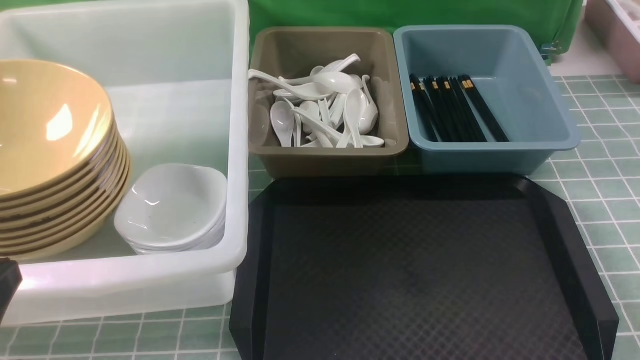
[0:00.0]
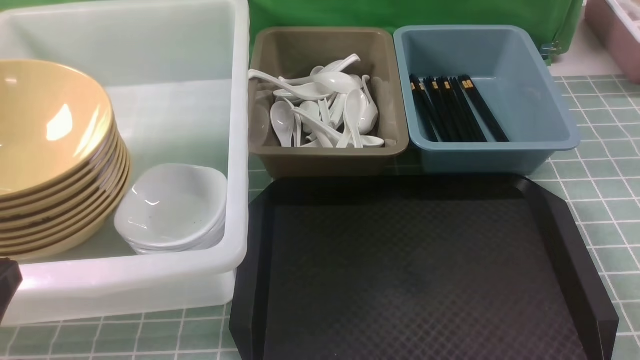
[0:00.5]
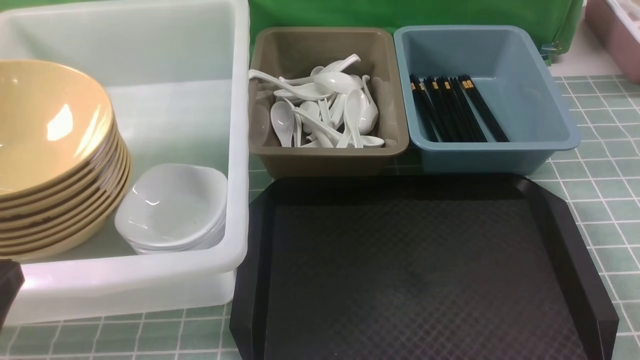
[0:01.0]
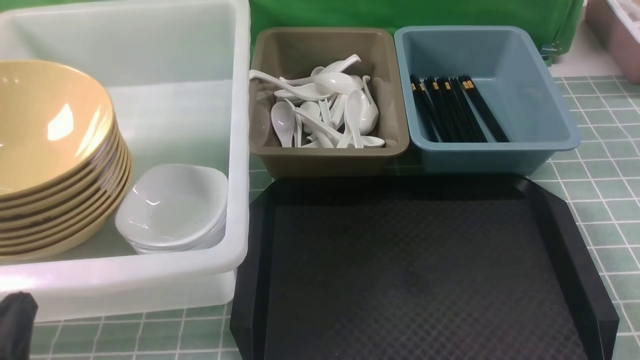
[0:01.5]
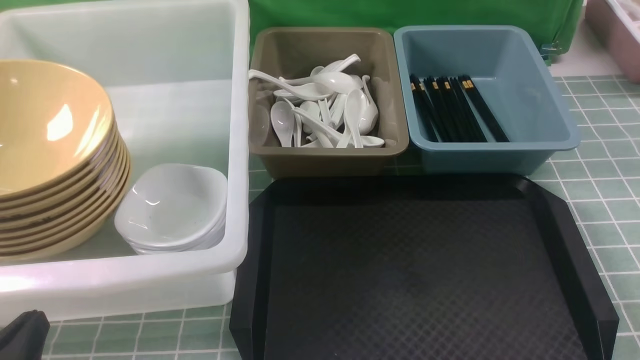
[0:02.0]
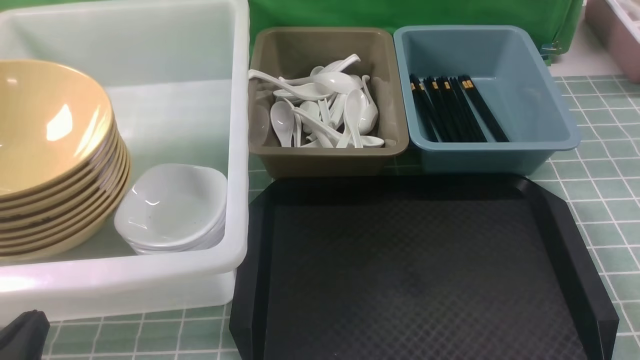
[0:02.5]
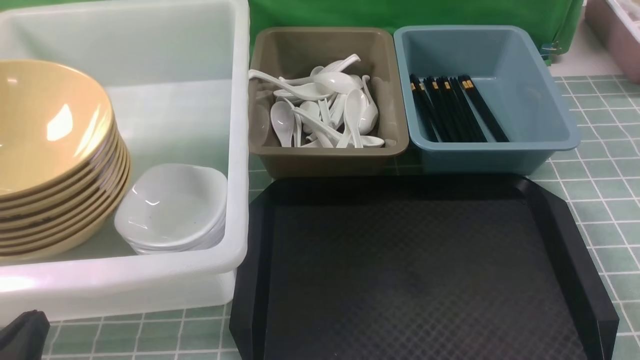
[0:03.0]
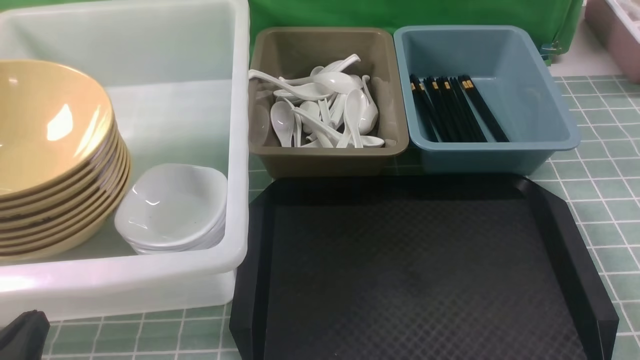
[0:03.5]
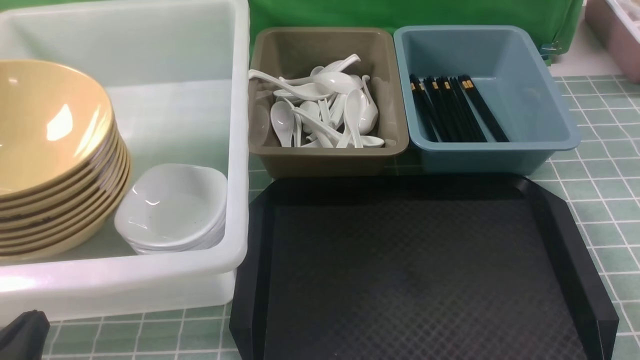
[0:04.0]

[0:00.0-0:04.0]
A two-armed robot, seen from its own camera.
Task of the whole recording: on blue table put chopsticks spoon bowls plates into blue grey white boxes.
0:00.0 to 0:02.0: The left gripper shifts about 10 cm downward.
0:02.0 to 0:04.0: Both grippers stay put.
